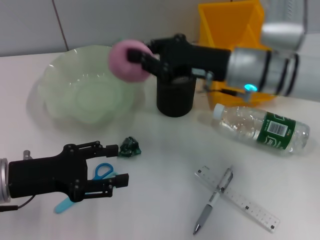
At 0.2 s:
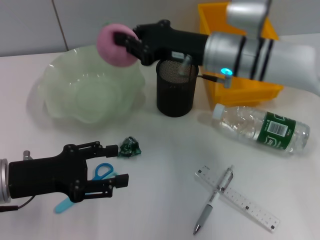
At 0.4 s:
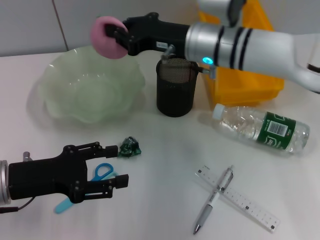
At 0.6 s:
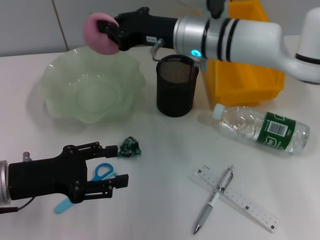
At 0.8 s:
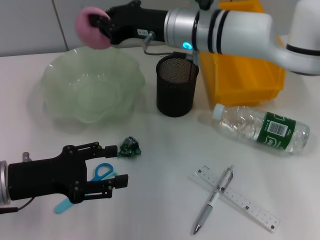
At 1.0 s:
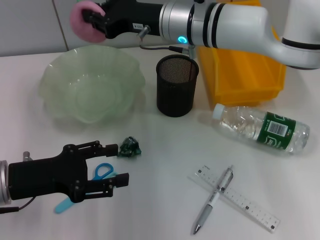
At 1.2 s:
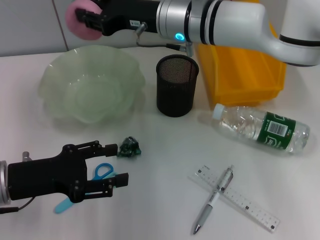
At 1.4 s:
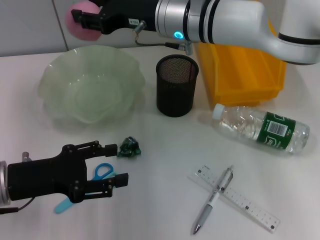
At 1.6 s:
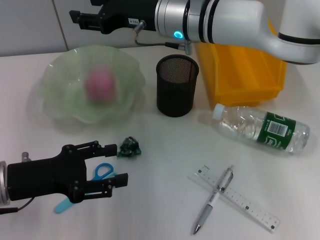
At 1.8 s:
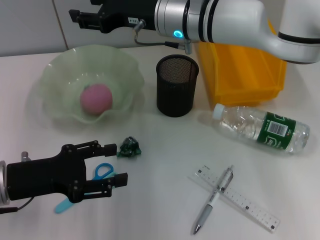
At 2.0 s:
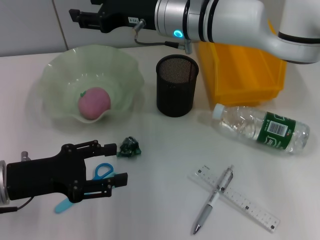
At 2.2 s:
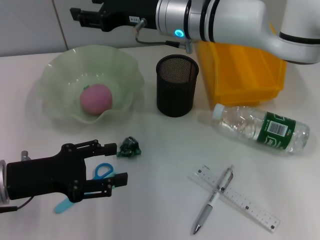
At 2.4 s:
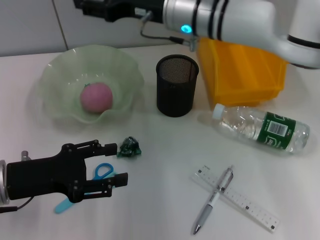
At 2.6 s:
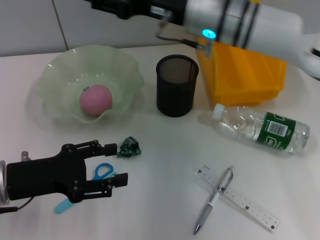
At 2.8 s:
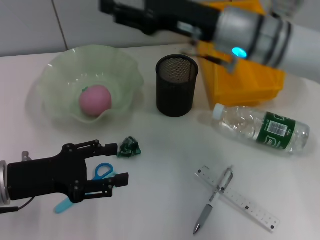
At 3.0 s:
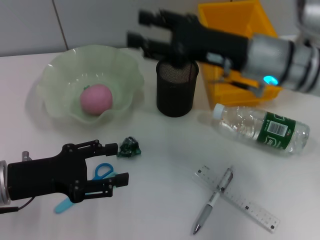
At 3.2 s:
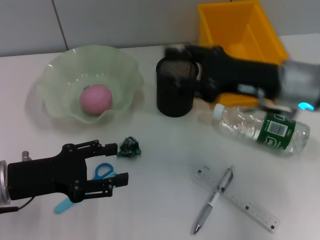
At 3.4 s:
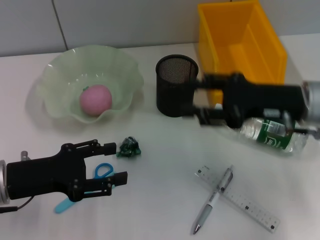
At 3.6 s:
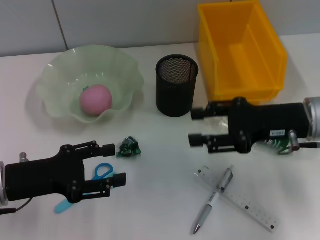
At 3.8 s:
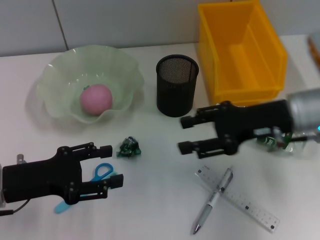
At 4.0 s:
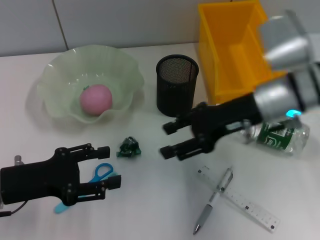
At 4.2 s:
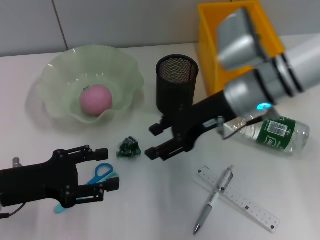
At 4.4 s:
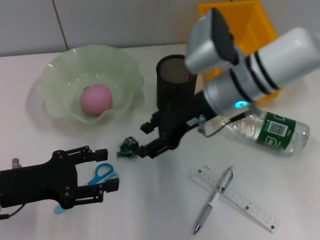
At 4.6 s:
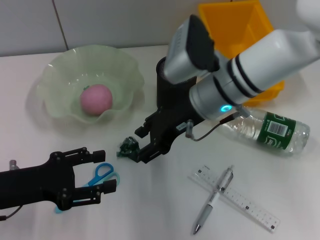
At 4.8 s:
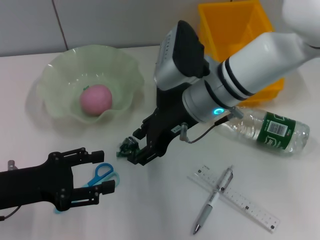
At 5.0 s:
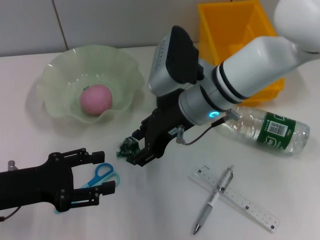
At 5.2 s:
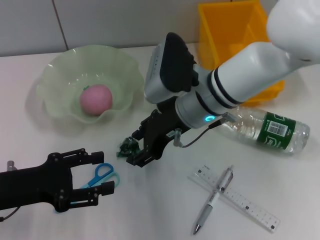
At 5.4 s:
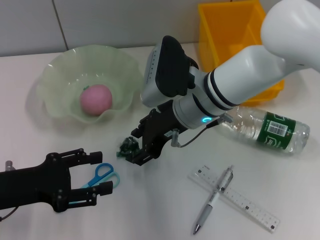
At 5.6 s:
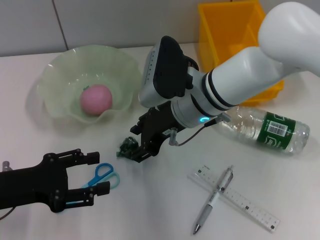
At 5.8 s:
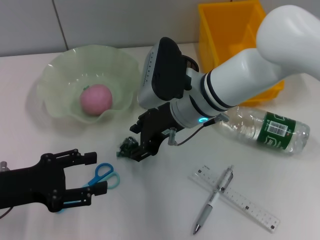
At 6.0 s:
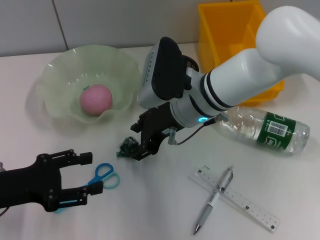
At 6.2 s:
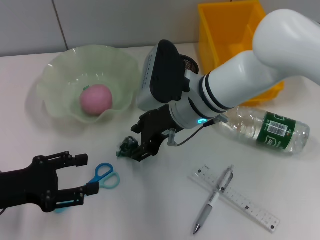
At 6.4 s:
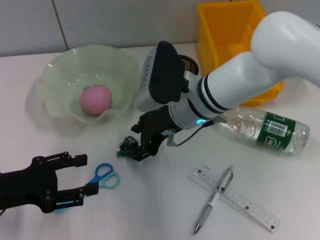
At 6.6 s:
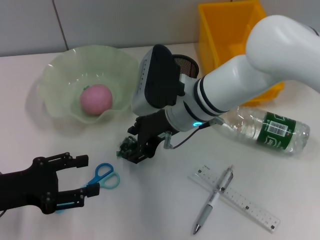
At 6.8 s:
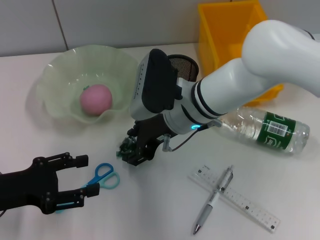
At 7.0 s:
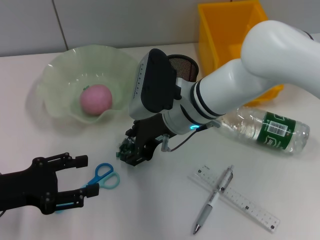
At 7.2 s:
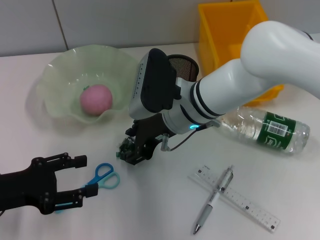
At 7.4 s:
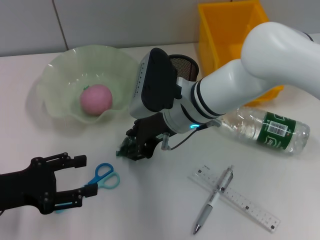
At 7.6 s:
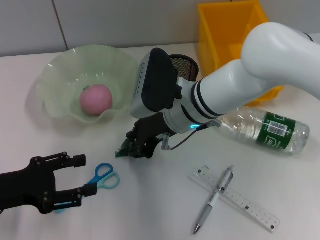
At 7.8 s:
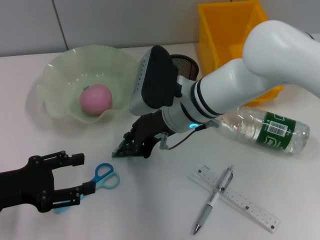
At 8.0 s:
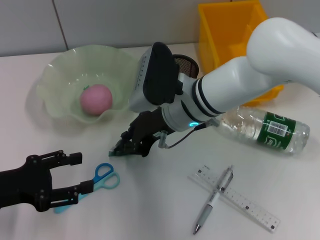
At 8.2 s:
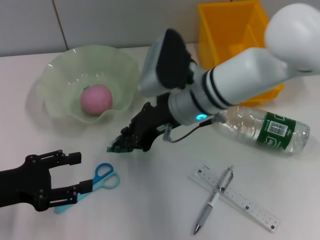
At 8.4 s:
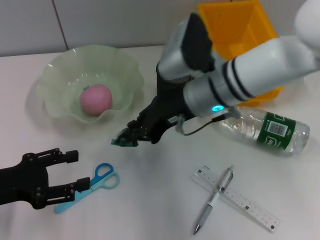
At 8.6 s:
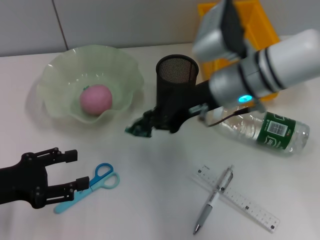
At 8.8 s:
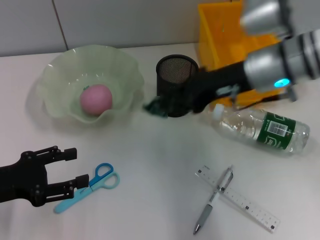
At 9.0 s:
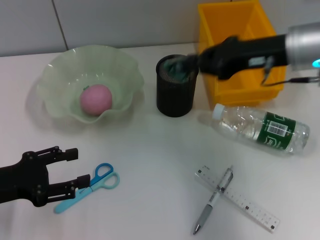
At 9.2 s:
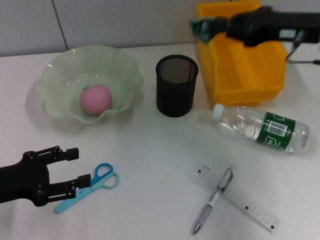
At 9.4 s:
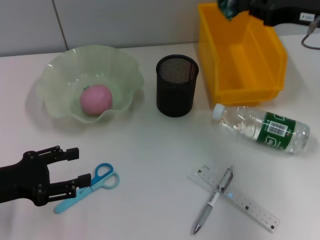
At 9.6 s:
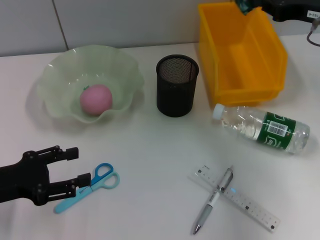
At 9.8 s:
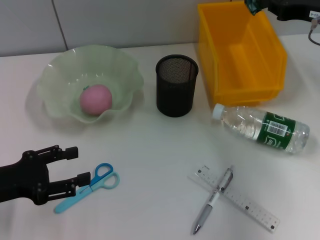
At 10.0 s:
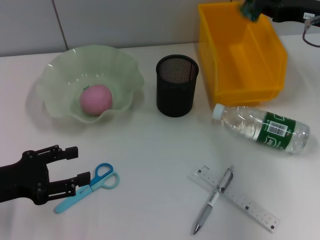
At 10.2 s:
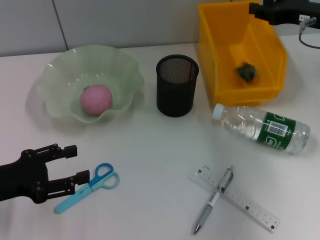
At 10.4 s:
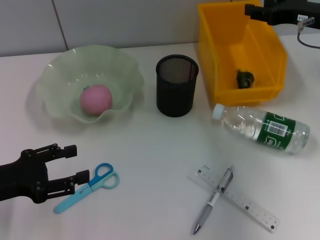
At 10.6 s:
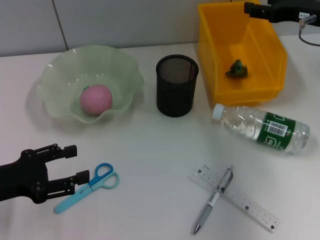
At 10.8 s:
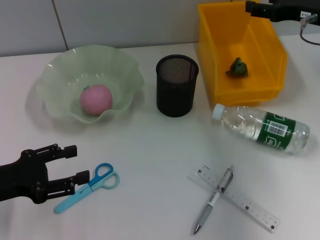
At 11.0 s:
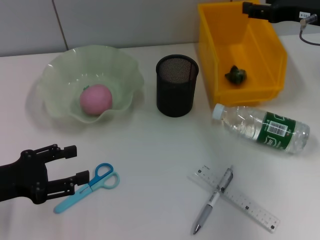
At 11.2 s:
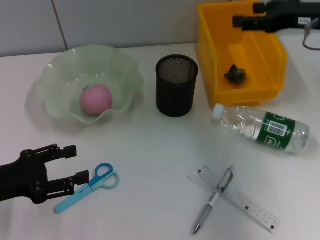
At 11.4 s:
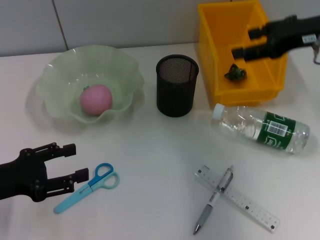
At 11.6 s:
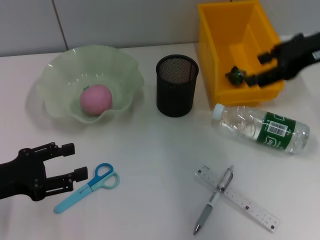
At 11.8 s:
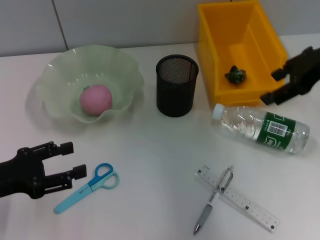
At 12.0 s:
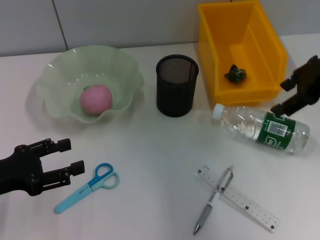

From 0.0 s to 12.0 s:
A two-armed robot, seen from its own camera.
Step, from 0.0 s to 2.0 s: Place the peach into the fruit bowl with the right hand.
Step, from 2.2 s to 7.6 s: Grab the plastic with the right hand.
Step, from 7.8 s to 10.6 s: Place the plastic into the trash can with the right hand.
From 0.0 s to 1.6 s: The right gripper travels to the left and forward by some 10 cm, and opens.
From 1.6 s to 3.0 s: The right gripper is displaced to the right and backward by approximately 15 cm.
From 3.0 s to 4.4 s: The right gripper travels to the left by approximately 5 cm.
From 4.4 s to 6.0 s: The right gripper changes place by about 5 cm.
From 6.0 s to 7.6 s: The grippers make only small movements.
From 7.6 s to 9.0 s: The right gripper shifts about 20 cm to the right and upward, and closes up.
From 9.0 s to 10.4 s: The right gripper goes roughly 10 cm to the right, and opens.
From 10.4 s to 12.0 s: The right gripper shifts some 5 cm upward, and opens up.

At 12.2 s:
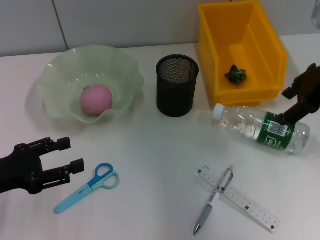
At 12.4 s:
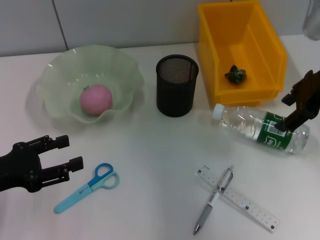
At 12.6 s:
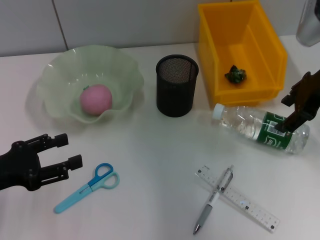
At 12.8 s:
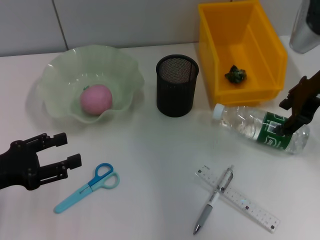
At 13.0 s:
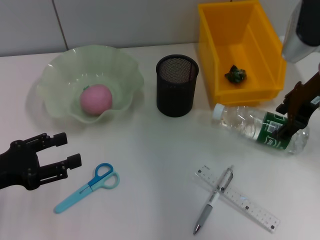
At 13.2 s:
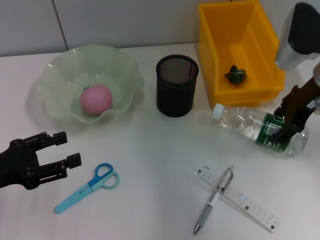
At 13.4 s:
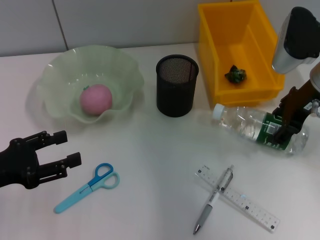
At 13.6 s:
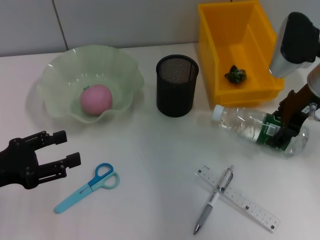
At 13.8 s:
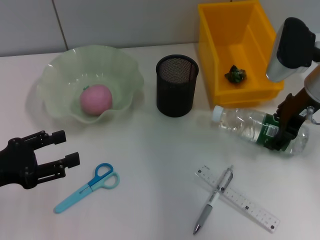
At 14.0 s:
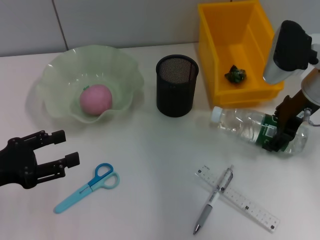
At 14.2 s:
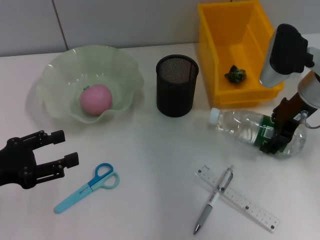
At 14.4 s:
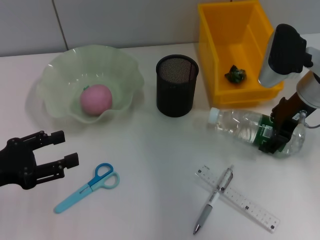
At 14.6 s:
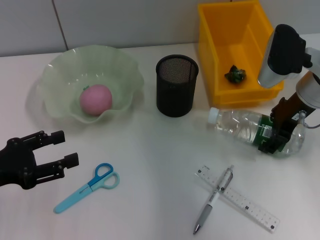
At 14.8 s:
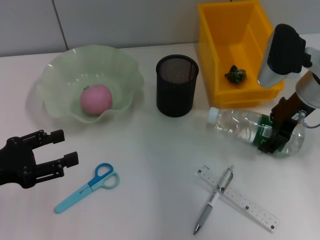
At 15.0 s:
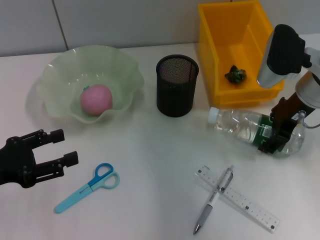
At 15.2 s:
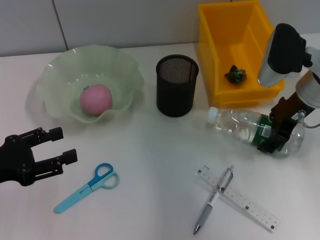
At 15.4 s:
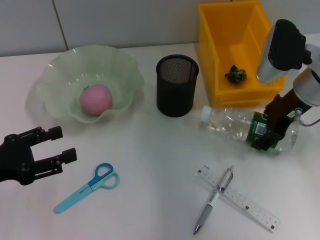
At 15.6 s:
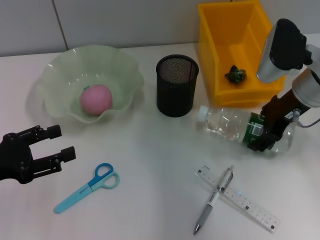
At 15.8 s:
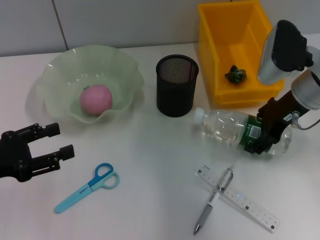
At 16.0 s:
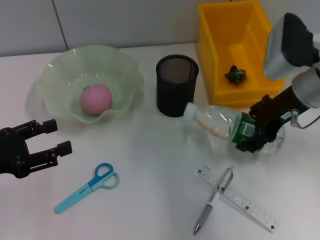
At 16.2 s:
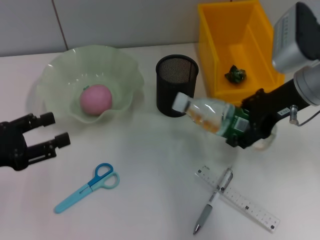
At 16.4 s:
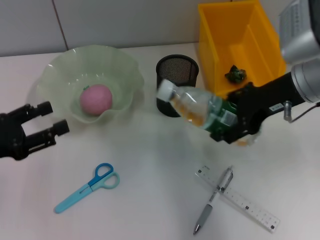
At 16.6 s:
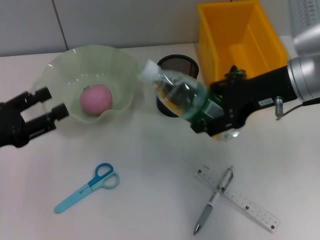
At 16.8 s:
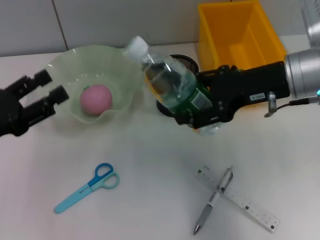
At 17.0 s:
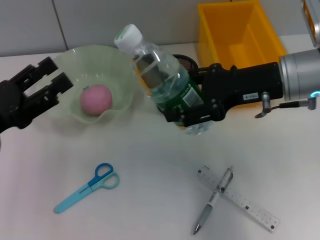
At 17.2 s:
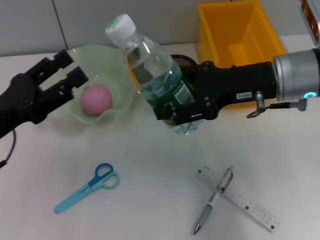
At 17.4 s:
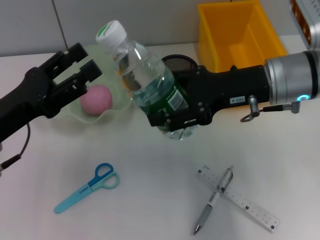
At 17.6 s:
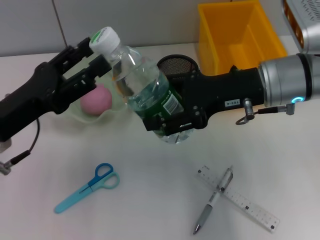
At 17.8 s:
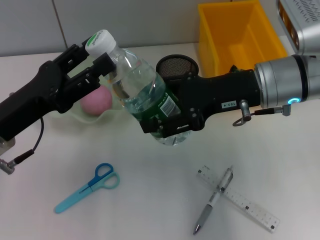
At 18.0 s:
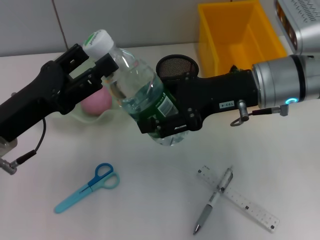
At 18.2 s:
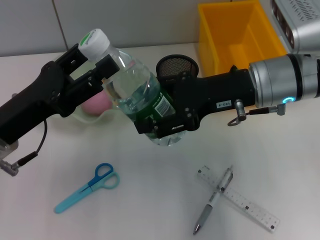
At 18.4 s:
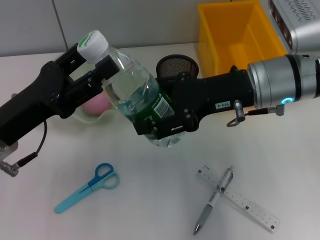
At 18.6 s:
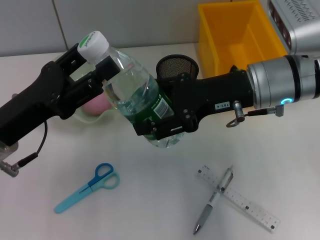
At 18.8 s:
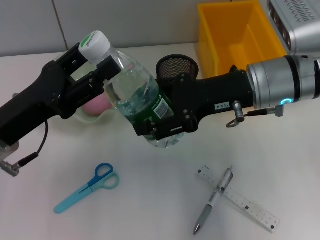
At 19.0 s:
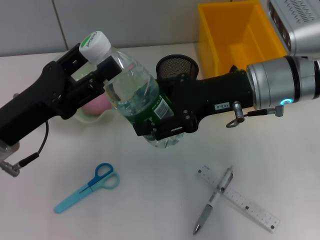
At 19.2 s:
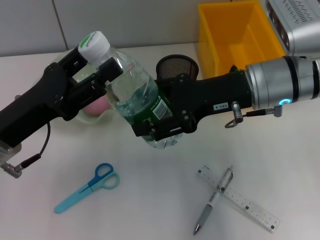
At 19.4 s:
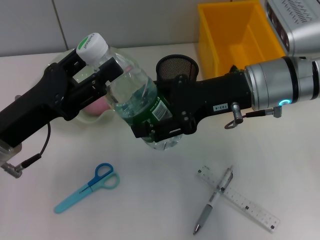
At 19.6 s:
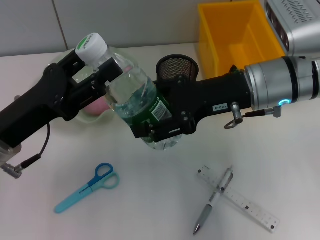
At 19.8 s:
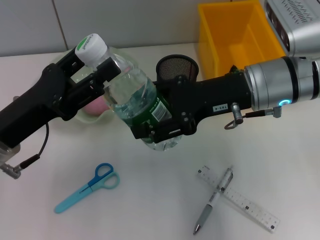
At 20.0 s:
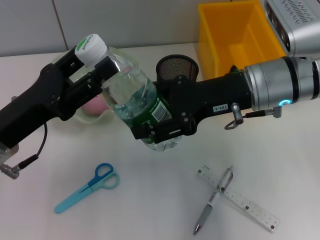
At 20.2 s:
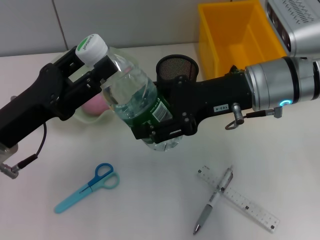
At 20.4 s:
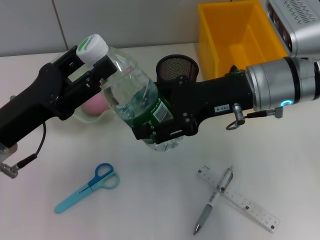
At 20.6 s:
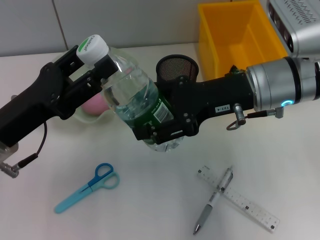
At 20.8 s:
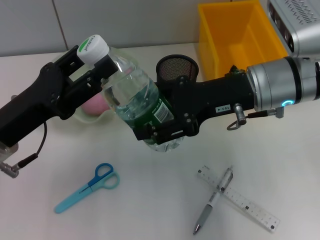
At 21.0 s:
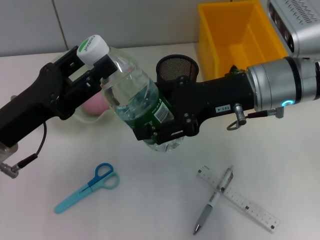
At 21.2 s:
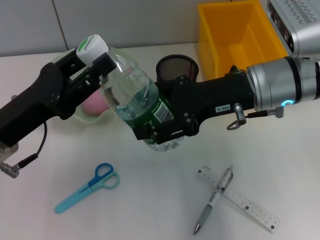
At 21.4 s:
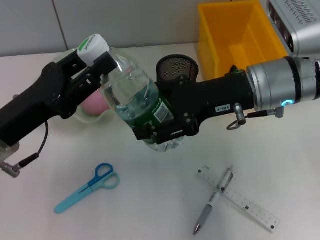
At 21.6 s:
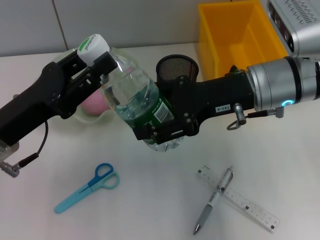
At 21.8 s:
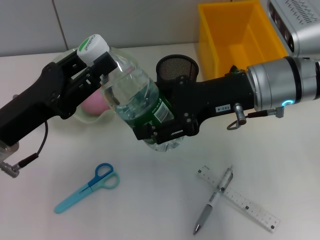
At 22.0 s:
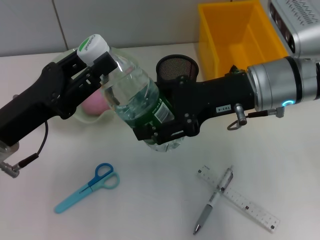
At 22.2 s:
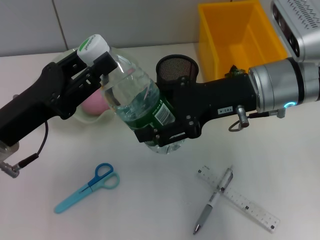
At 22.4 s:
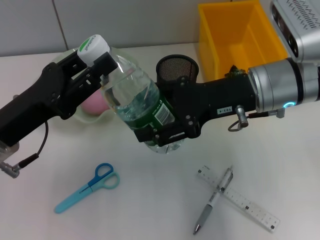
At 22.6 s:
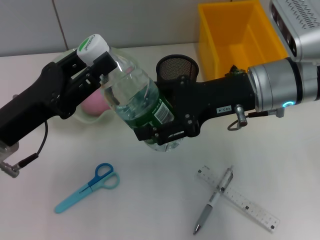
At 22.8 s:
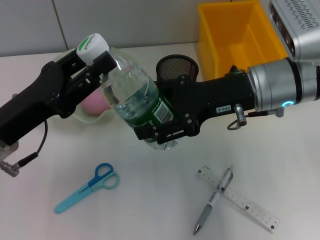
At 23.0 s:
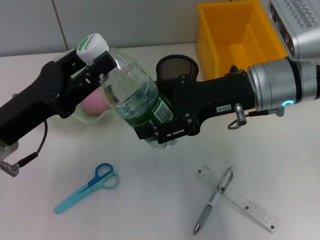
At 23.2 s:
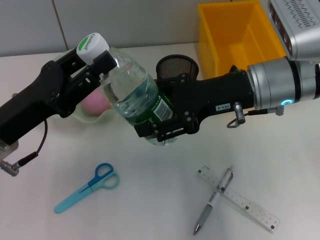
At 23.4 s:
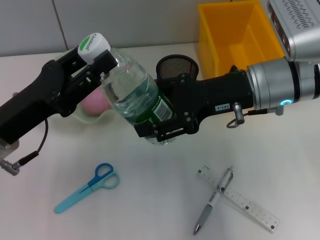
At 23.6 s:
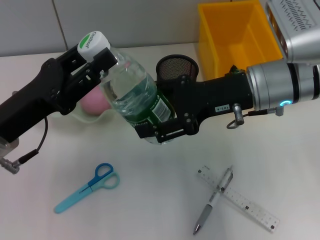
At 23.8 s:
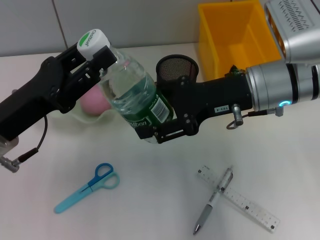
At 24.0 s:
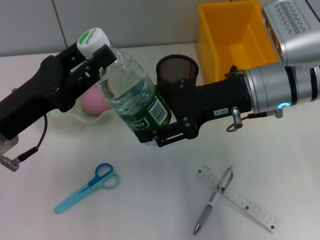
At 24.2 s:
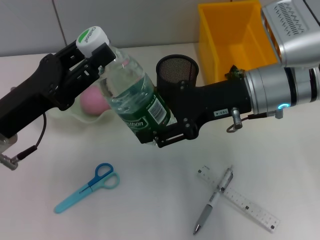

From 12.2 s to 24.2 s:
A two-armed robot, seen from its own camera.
Step, from 12.2 s to 14.0 s: Grab the water bottle with the right hand.
From 12.2 s to 13.8 s: The right gripper moves downward, some 5 cm.
From 13.8 s to 15.2 s: The two grippers keep their place.
From 15.2 s to 16.6 s: The right gripper changes place by about 5 cm.
From 16.6 s to 18.2 s: The left gripper shifts roughly 10 cm to the right.
From 18.2 s to 19.8 s: Both grippers stay put.
From 19.8 s to 21.2 s: The left gripper closes its fingers.
From 21.2 s to 24.2 s: The two grippers keep their place.
